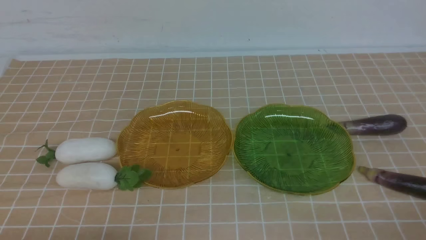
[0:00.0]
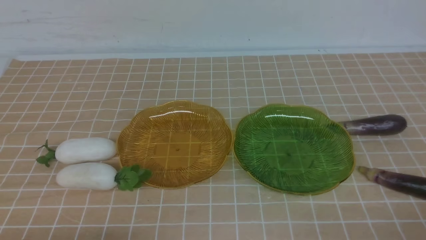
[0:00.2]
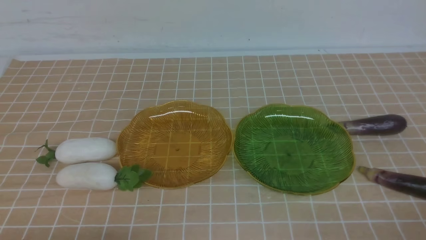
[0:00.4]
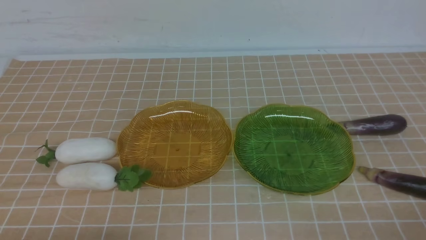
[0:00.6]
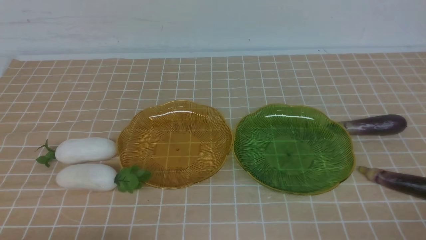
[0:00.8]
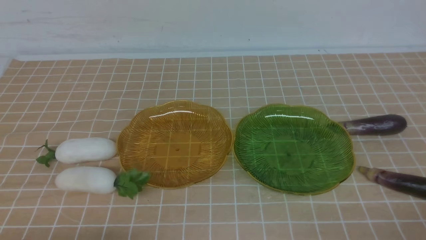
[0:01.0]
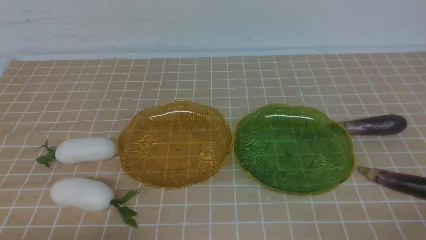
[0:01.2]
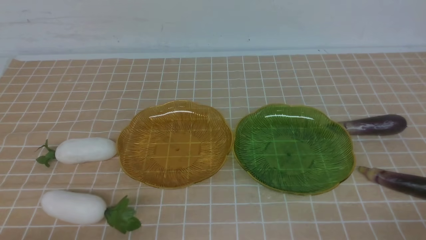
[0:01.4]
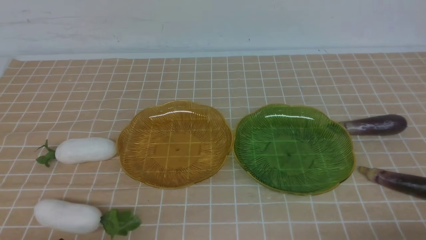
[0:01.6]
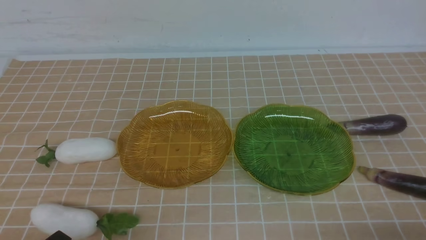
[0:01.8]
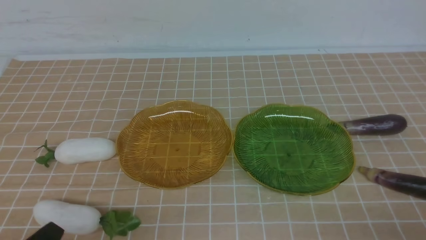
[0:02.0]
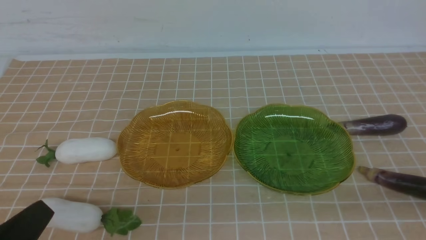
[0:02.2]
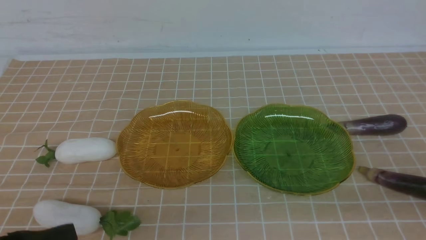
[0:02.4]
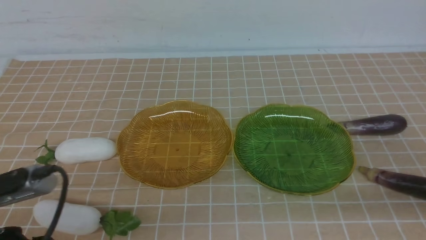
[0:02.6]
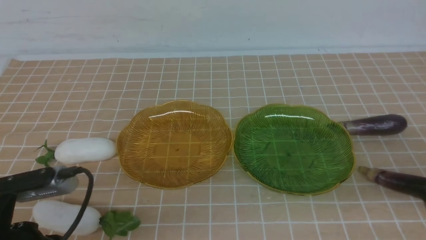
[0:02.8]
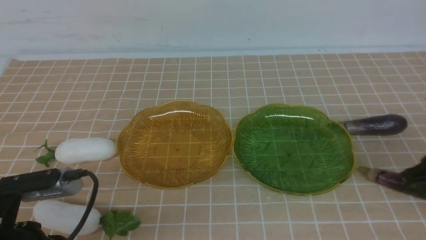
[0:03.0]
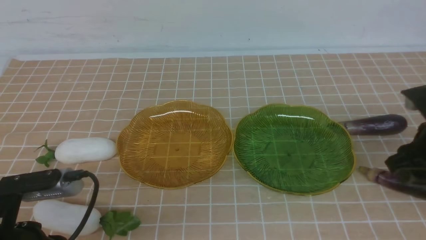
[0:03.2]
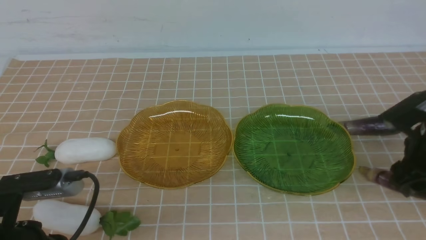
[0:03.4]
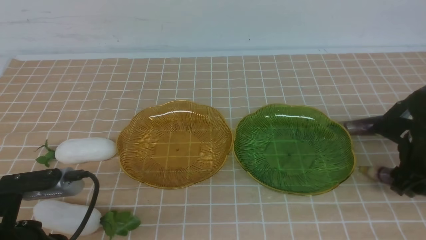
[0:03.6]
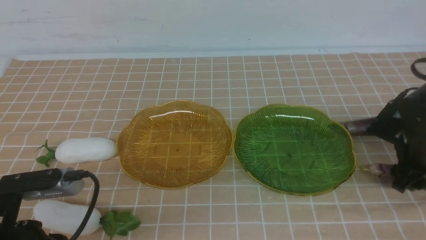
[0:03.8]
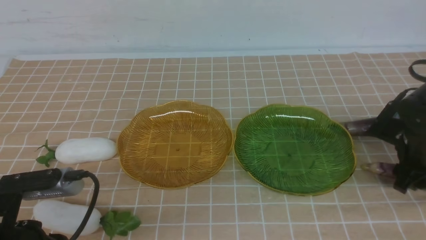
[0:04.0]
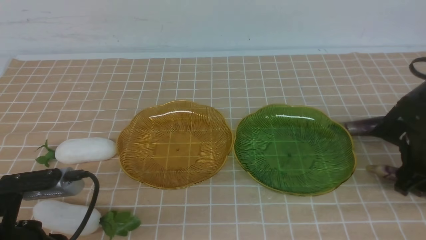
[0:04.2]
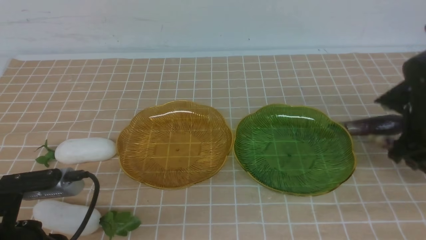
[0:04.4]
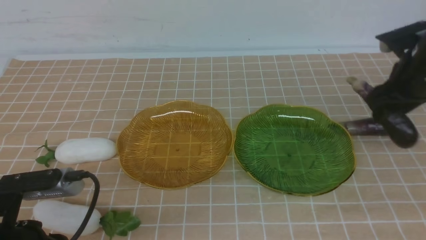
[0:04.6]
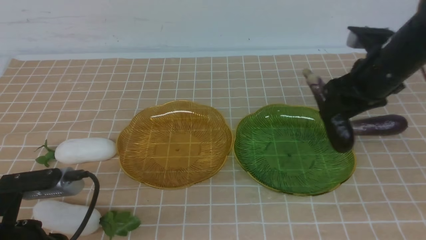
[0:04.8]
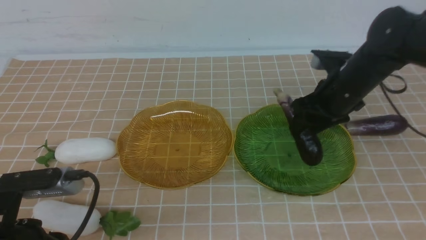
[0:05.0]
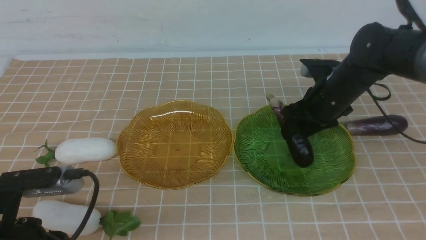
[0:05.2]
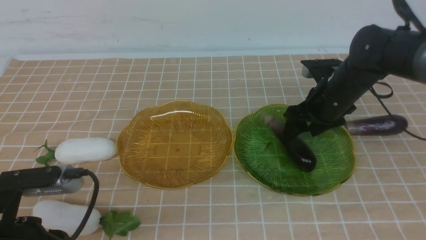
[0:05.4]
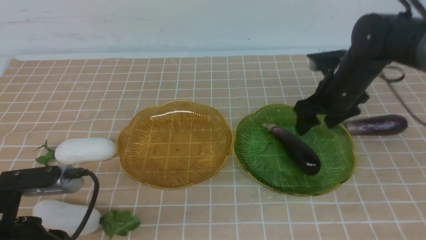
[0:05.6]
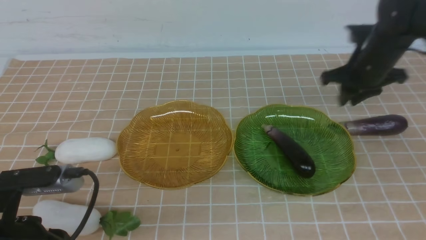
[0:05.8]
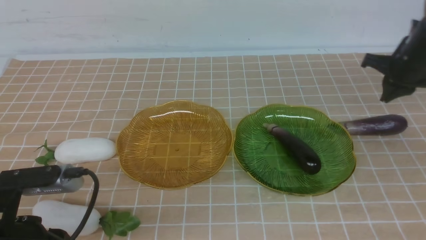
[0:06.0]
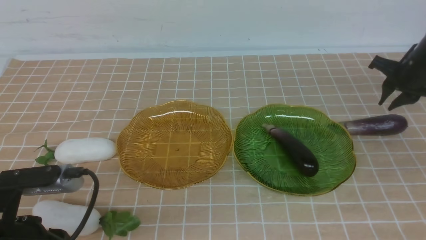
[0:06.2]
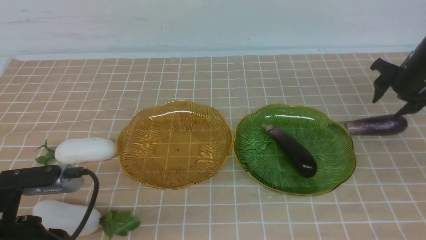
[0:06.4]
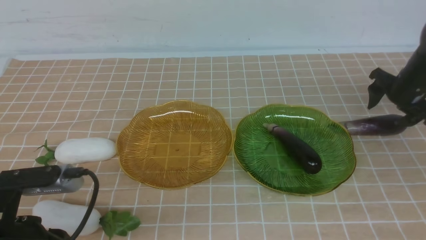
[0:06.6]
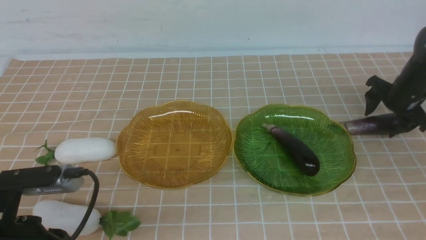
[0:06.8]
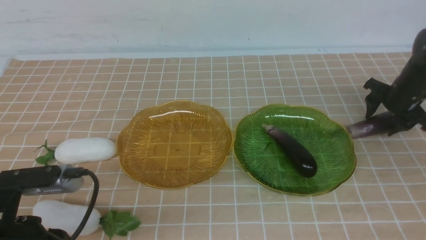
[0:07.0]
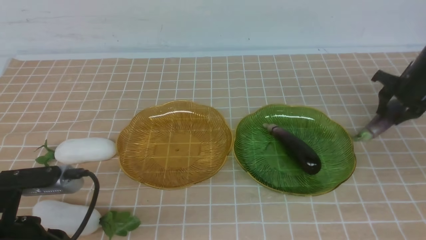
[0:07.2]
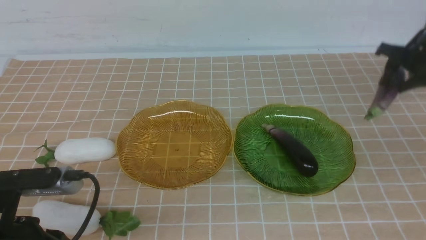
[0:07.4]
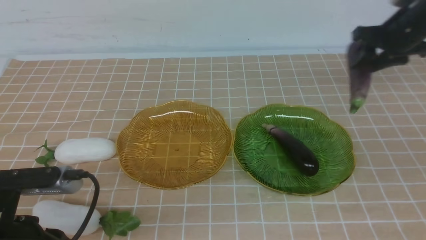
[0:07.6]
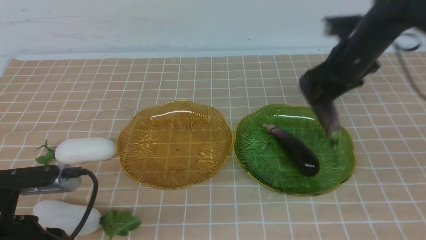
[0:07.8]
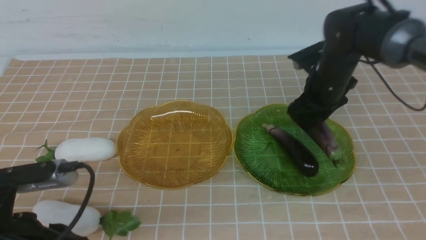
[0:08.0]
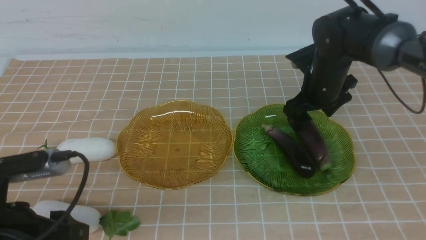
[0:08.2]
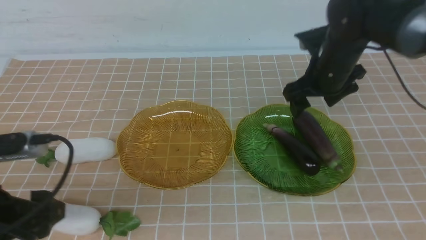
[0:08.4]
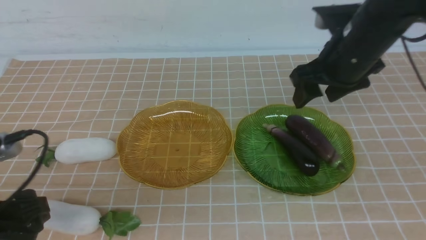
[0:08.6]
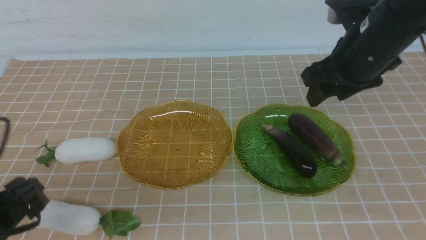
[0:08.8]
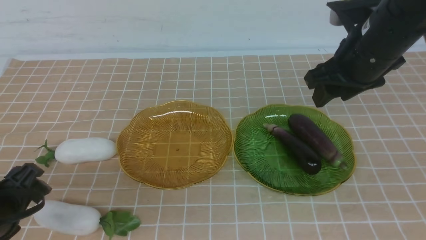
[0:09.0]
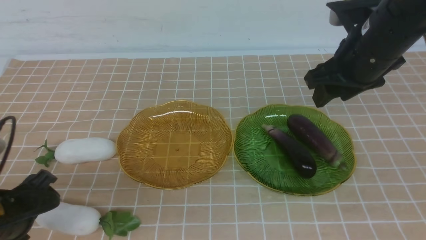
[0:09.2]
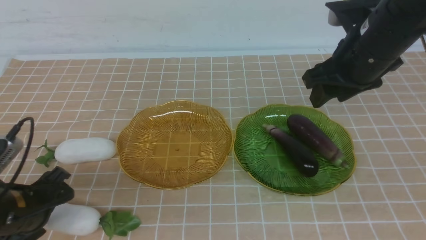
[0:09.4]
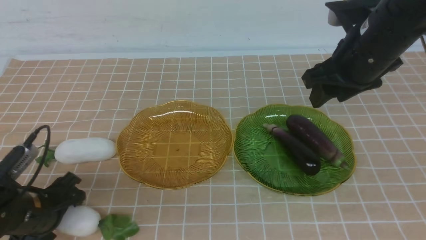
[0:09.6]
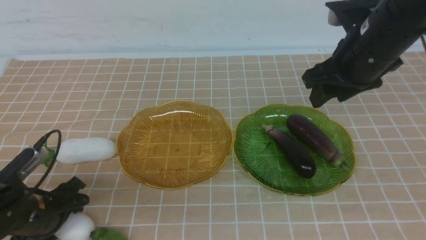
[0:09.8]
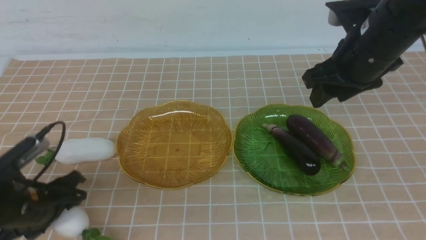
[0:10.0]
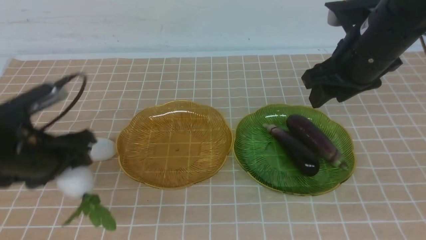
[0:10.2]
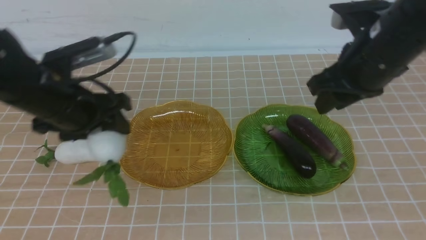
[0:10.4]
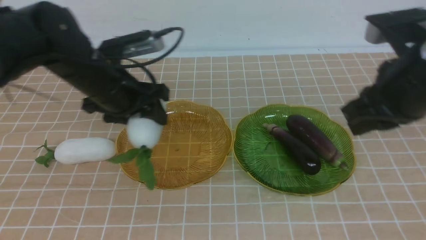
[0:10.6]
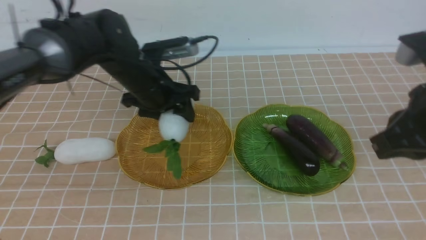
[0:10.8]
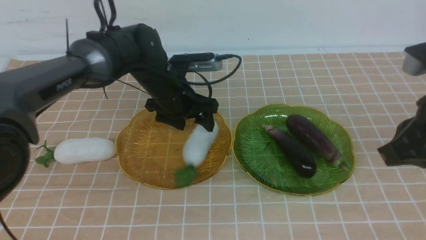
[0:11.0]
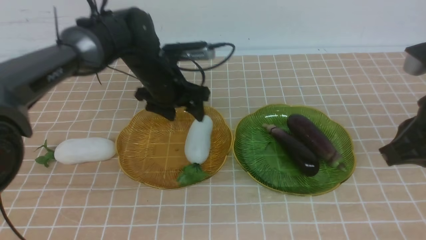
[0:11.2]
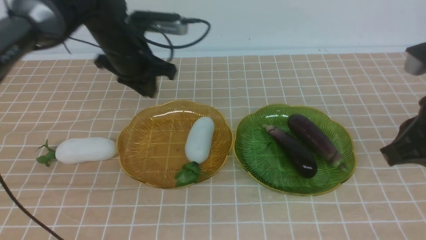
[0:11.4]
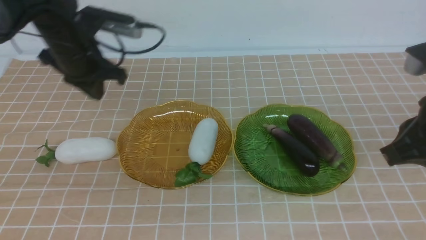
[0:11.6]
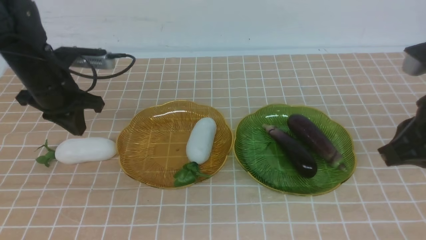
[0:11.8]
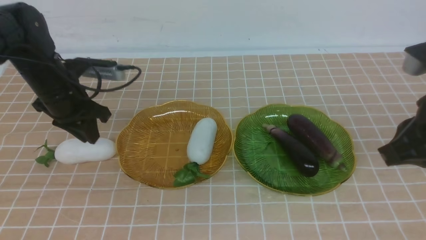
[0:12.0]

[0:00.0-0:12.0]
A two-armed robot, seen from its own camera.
Step, 0:00.0 to 0:08.4: use the right arm to grab an eggplant and put it into the right plate.
Step, 0:08.6 to 0:11.4: use the left arm to grab a radish and put it into the left plate.
0:01.6 to 0:03.0: The left gripper moves forward and upward, about 10 cm, while the right gripper is displaced forward and upward by roughly 20 cm.
0:03.0 to 0:04.4: The right gripper heads forward, covering some 10 cm, and opens.
0:04.4 to 0:06.0: The right gripper is displaced forward by some 10 cm, moves some 10 cm to the left and comes back, and closes up.
0:06.0 to 0:07.6: The right gripper moves to the left, approximately 5 cm, and opens up.
0:07.6 to 0:09.0: The right gripper goes some 15 cm backward, upward and to the left. Meanwhile the left gripper heads forward and downward, covering approximately 10 cm, and opens up.
0:09.0 to 0:10.4: The right gripper heads backward, covering some 10 cm, and closes up; the left gripper is displaced forward and to the right by some 25 cm.
0:10.4 to 0:12.0: The left gripper is displaced to the left by roughly 15 cm, and closes and opens again.

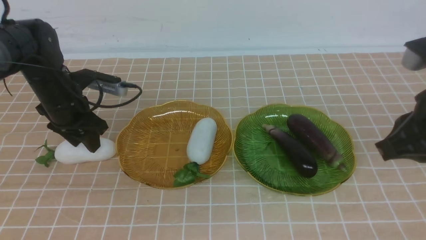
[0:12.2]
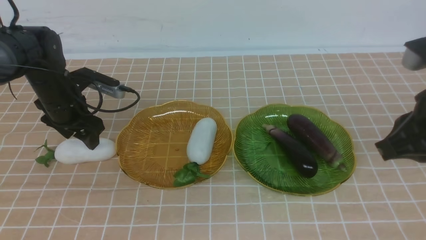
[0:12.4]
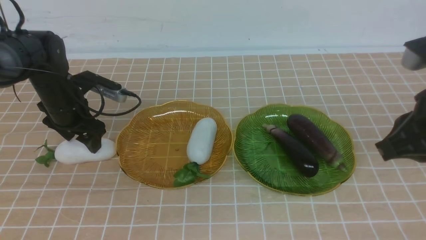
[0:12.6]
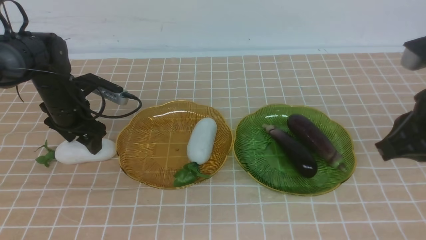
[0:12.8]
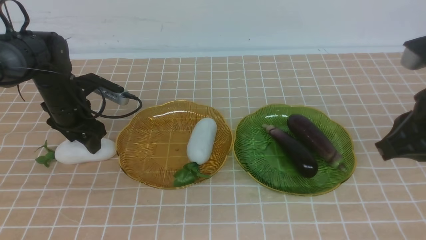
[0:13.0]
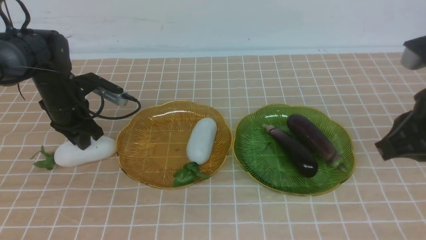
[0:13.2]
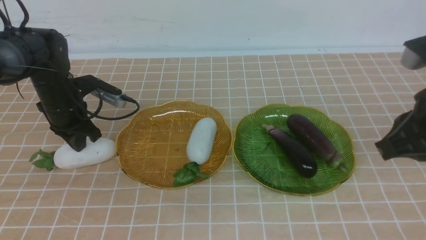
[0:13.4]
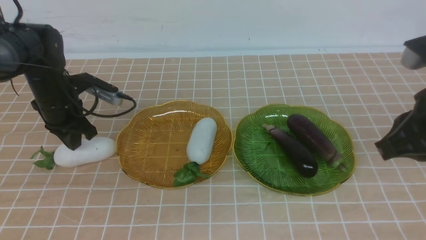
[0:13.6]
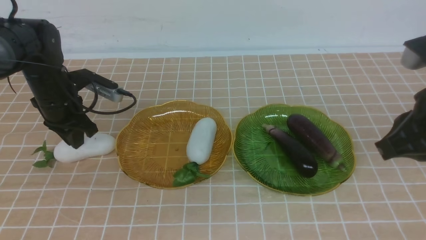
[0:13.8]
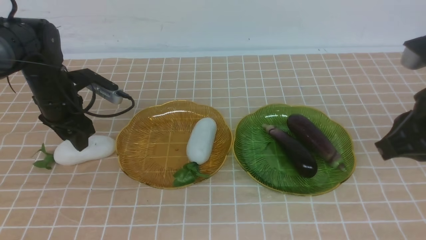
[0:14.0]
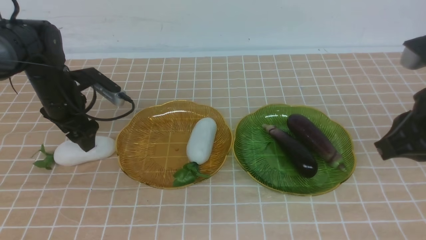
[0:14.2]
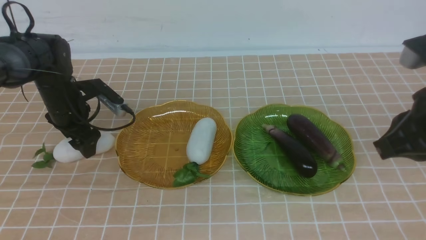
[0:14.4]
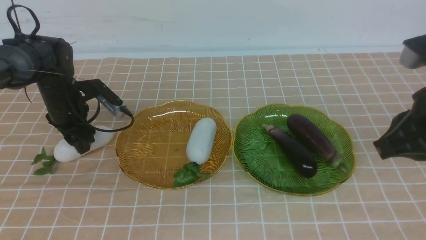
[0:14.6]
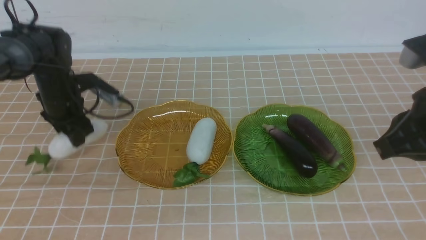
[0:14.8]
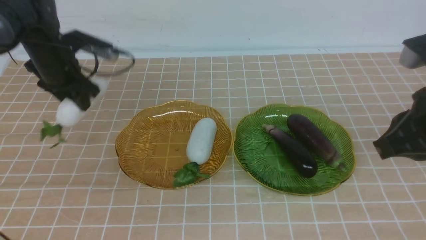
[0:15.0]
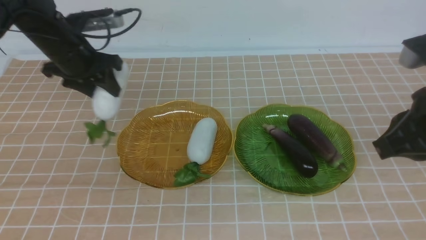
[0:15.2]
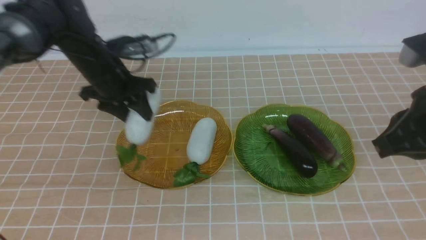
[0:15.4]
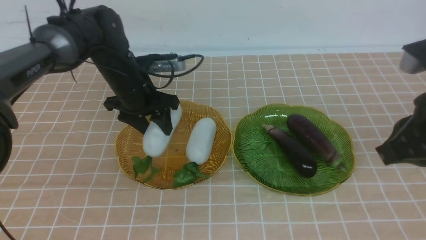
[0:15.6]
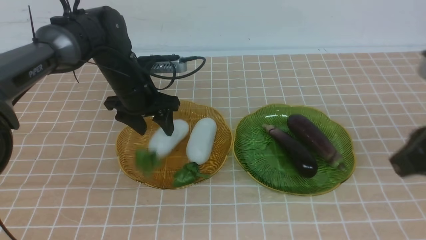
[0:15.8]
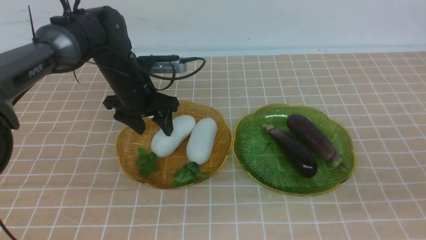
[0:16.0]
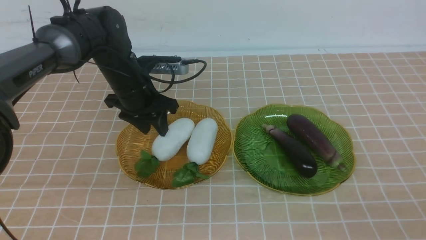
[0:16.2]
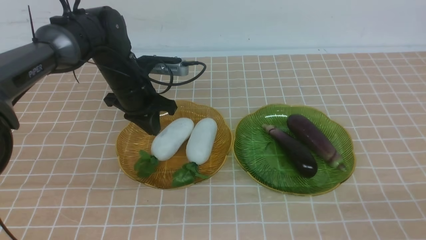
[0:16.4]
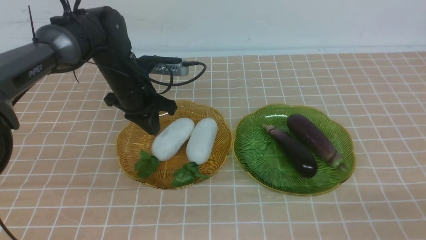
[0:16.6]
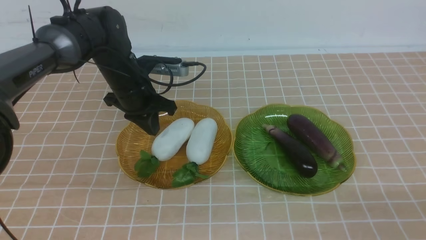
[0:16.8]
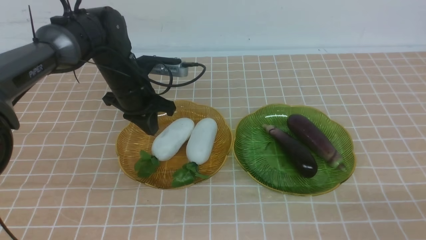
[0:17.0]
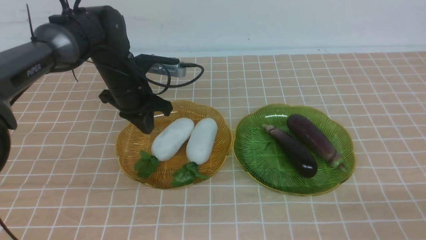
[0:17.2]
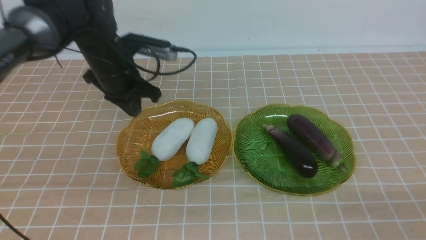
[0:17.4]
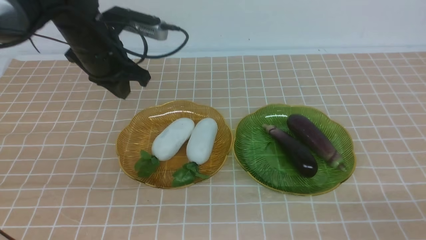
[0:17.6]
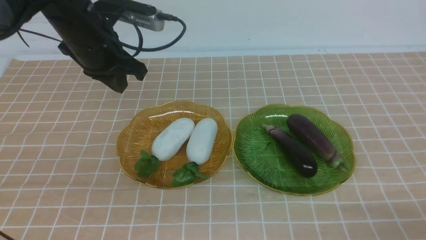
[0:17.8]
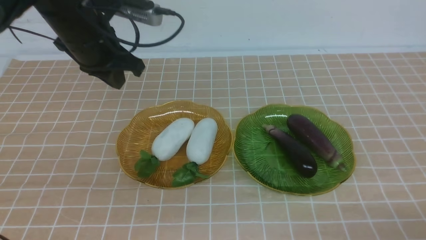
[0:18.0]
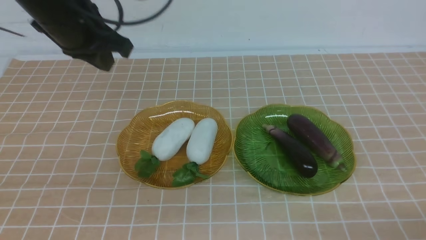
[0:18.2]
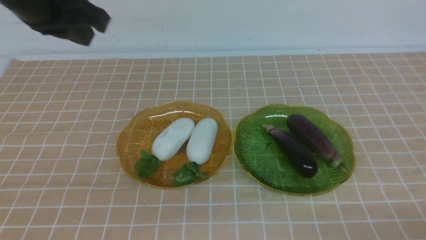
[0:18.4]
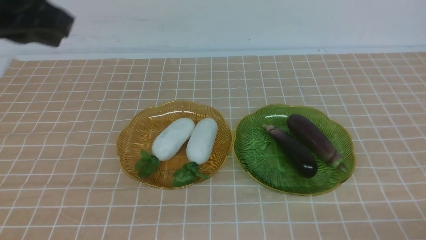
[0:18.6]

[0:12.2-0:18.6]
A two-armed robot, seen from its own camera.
Step, 0:12.2 to 0:16.0: use the left arm to grab a radish and put it into the left plate.
0:12.2 to 0:13.8: The left gripper closes, then opens again.
0:13.8 to 0:15.4: The left gripper travels to the right by about 10 cm.
0:15.4 to 0:17.0: The left gripper closes its fingers. The right gripper travels backward, downward and to the right by some 20 cm.
0:17.0 to 0:18.6: The left gripper travels upward and backward by about 25 cm, while the right gripper is displaced downward by about 5 cm.
